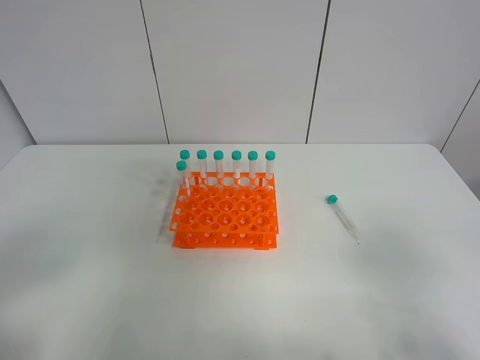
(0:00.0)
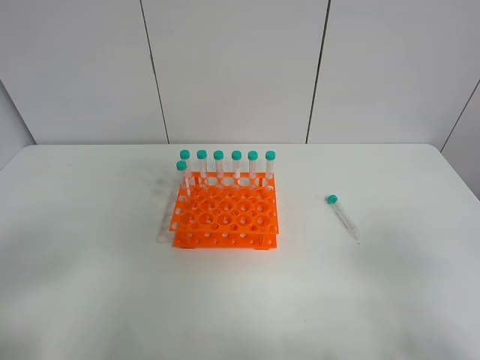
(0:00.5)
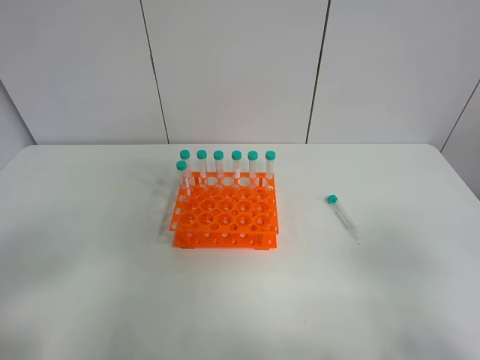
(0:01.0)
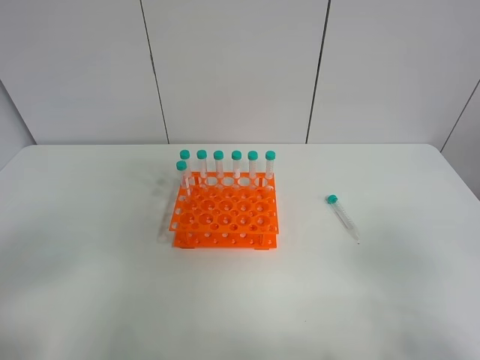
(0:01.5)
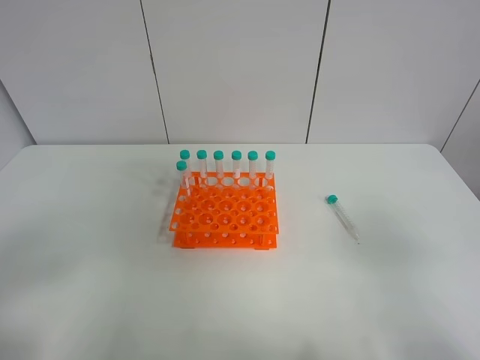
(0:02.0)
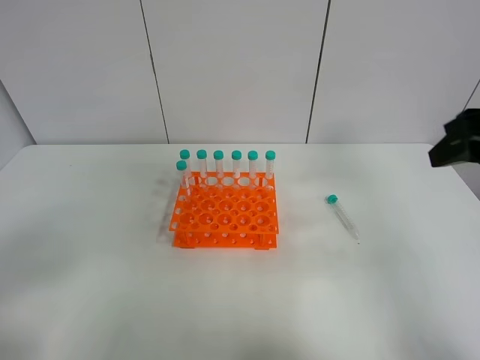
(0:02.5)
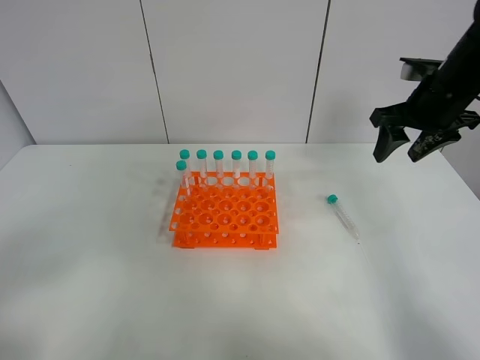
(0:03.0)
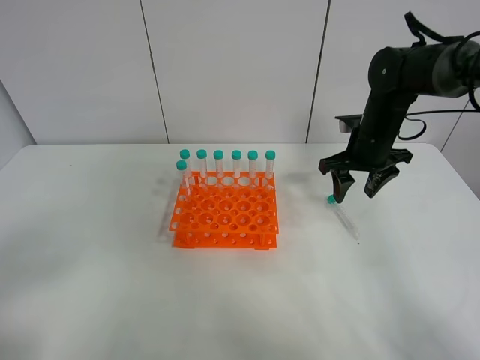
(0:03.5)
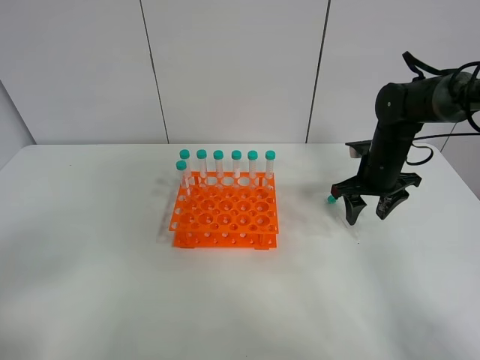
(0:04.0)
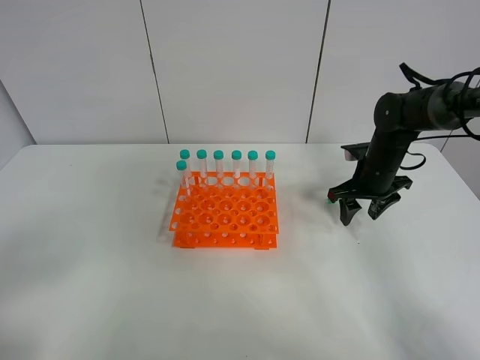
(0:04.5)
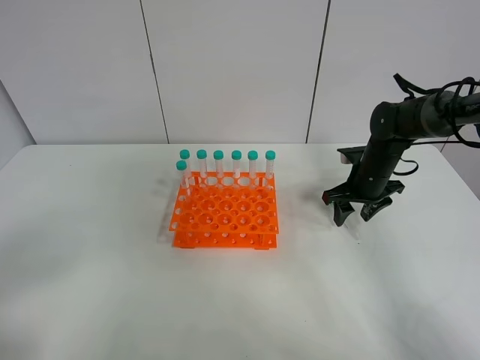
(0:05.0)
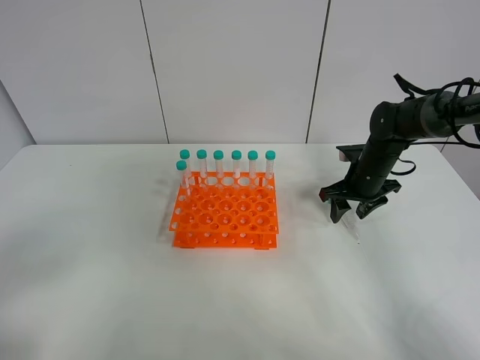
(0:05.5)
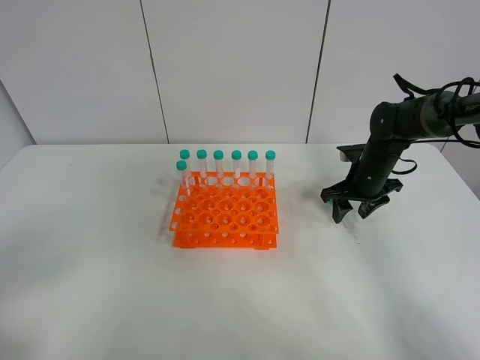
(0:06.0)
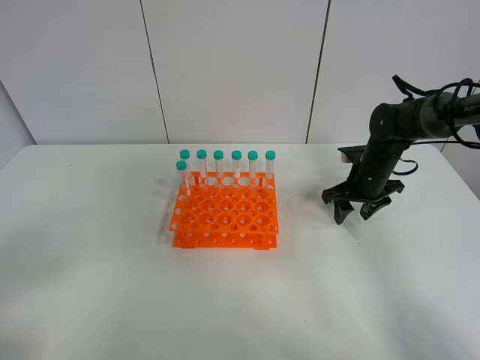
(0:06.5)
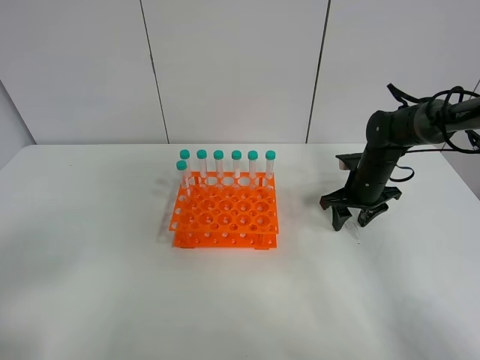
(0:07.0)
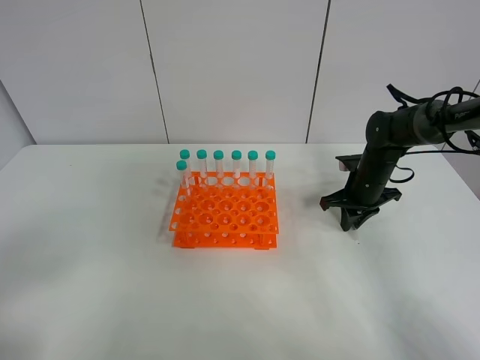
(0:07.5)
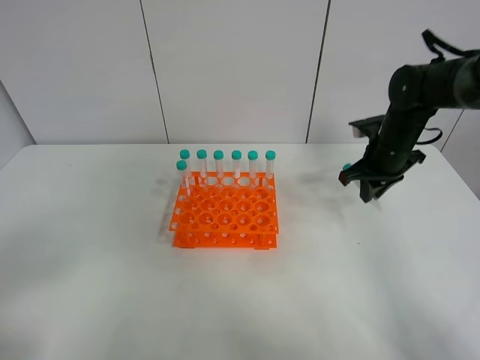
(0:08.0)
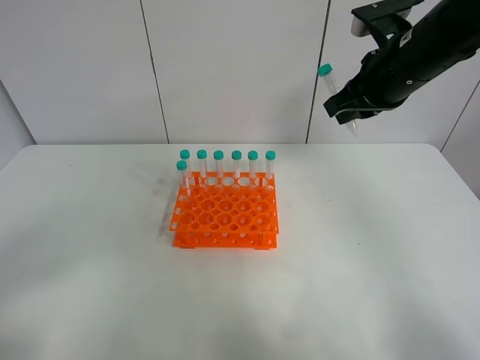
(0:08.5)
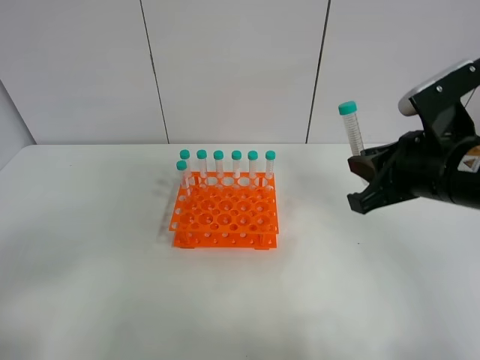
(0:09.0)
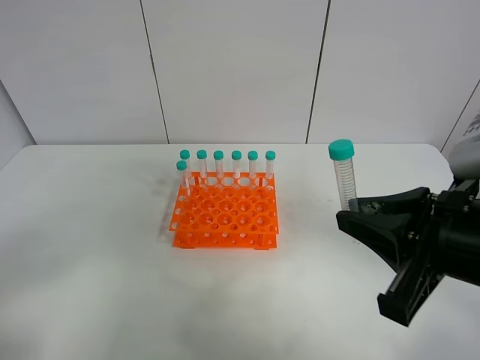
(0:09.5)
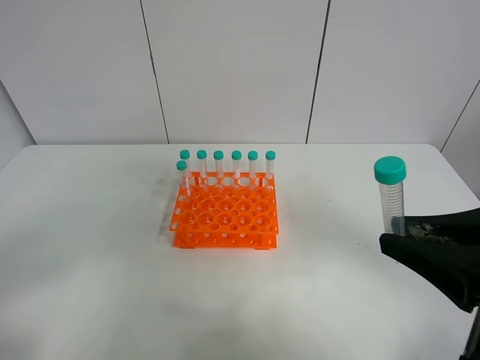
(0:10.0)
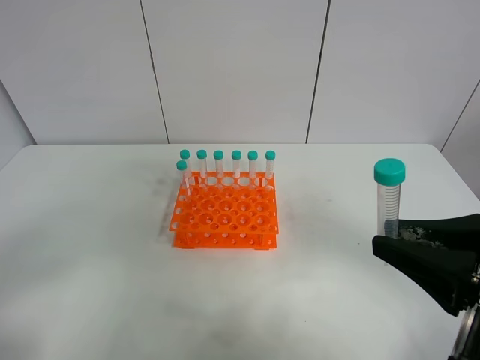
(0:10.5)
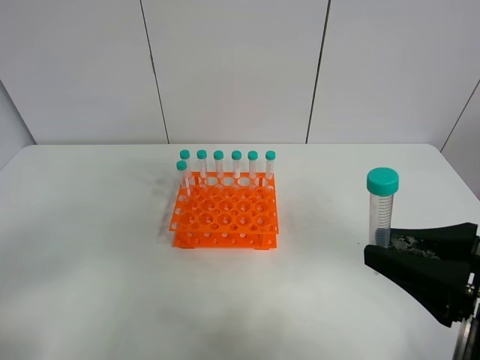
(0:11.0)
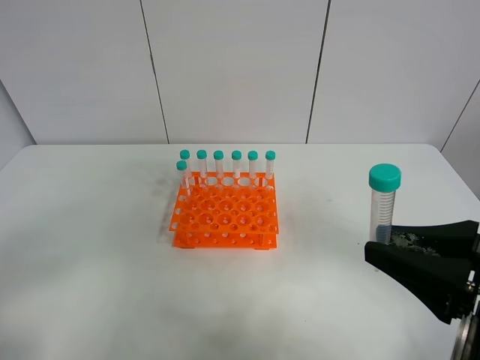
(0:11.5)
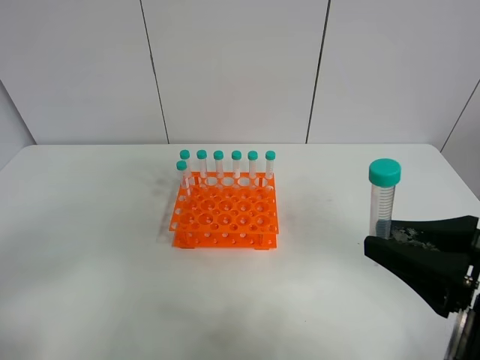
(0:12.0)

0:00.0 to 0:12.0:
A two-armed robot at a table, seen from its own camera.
Task of the whole recording: Put the test tube on the table back onto the test tube rack.
Step, 0:00.0 to 0:08.0: Pick up the test tube with the right gripper.
0:02.0 to 0:04.0: The right gripper shifts approximately 40 cm forward and downward.
0:04.0 to 0:06.0: The grippers move only a little.
0:06.0 to 0:08.0: The right gripper goes roughly 10 cm upward, and closes its fingers.
0:08.0 to 0:10.0: The right gripper moves backward, some 30 cm.
0:10.0 to 0:12.0: The grippers move only a little.

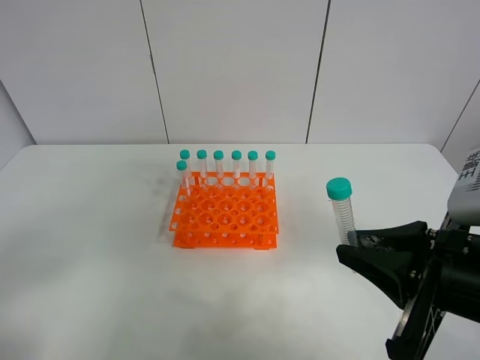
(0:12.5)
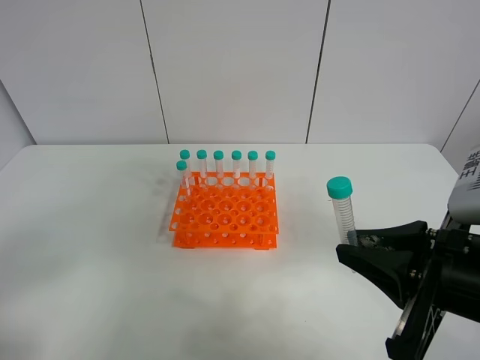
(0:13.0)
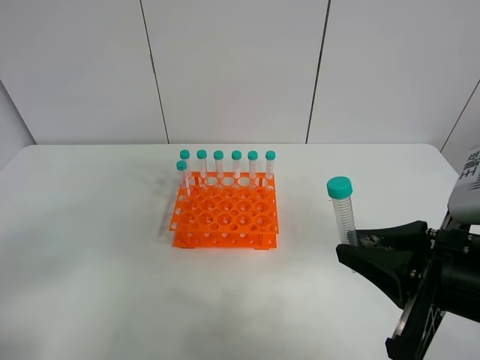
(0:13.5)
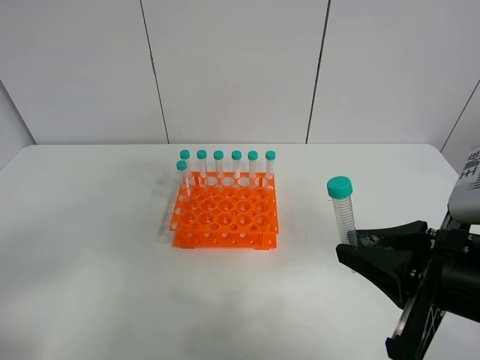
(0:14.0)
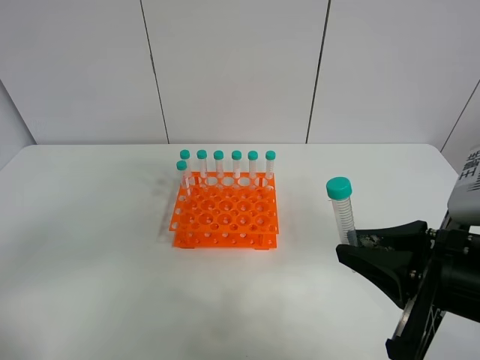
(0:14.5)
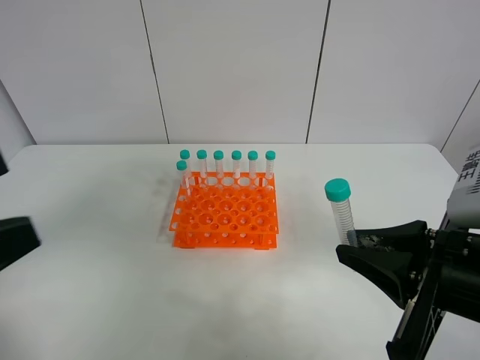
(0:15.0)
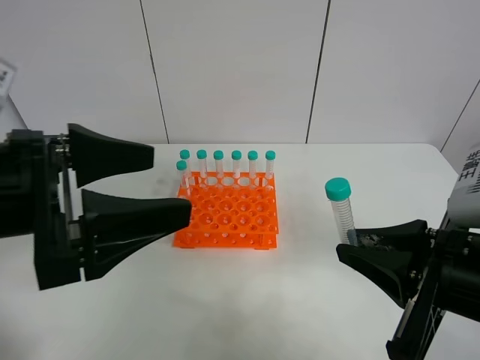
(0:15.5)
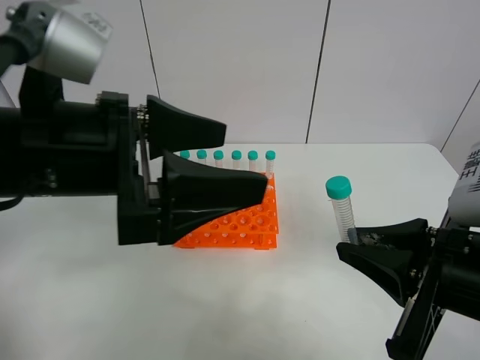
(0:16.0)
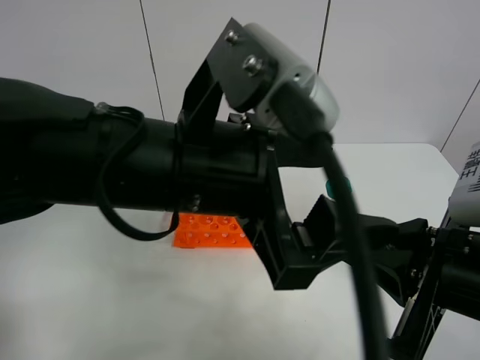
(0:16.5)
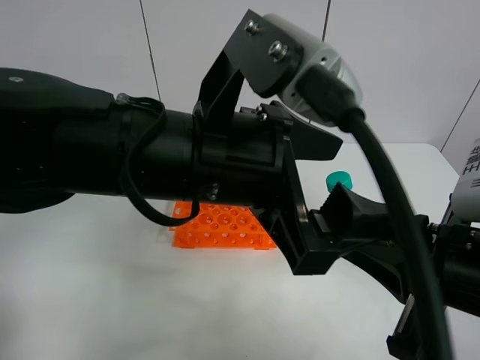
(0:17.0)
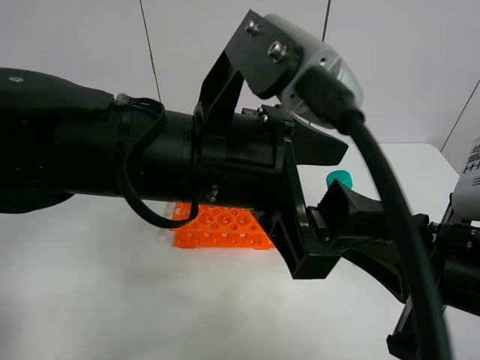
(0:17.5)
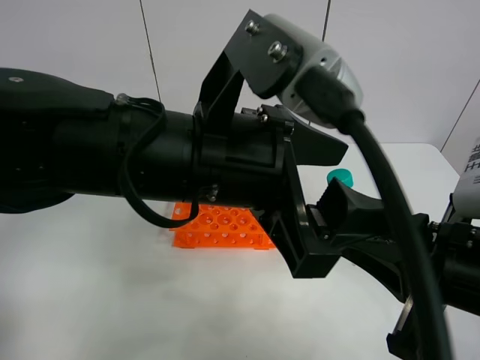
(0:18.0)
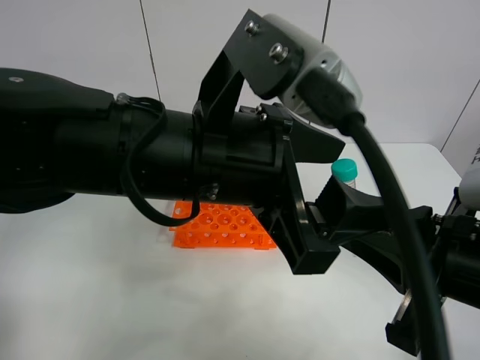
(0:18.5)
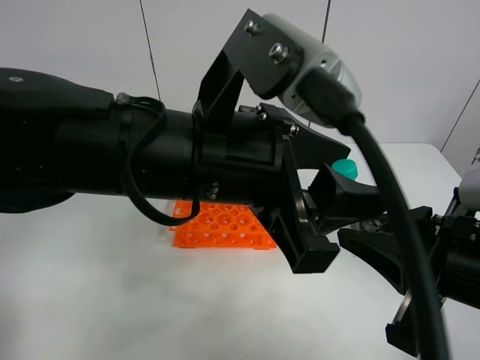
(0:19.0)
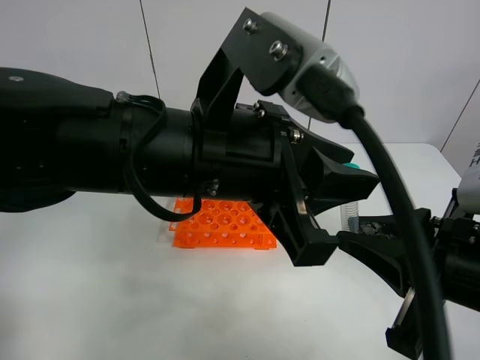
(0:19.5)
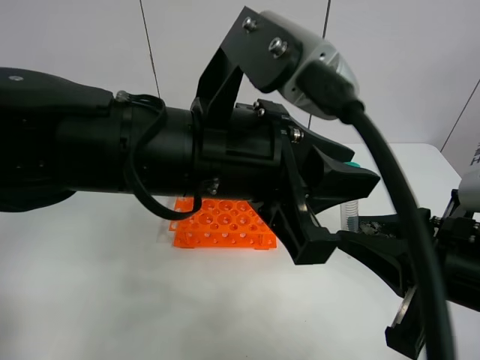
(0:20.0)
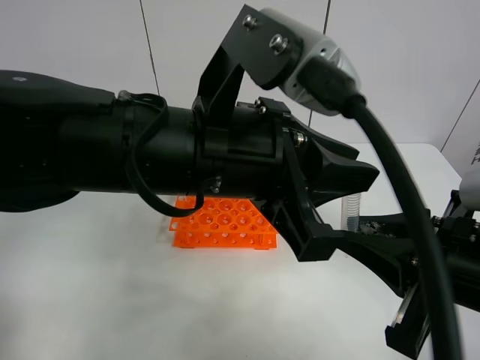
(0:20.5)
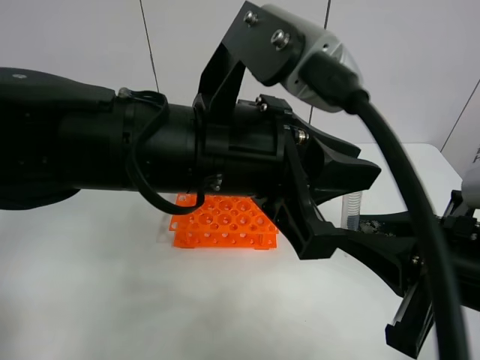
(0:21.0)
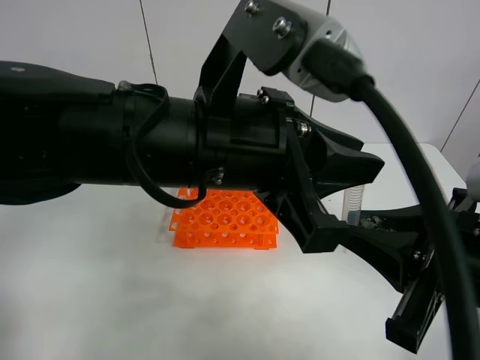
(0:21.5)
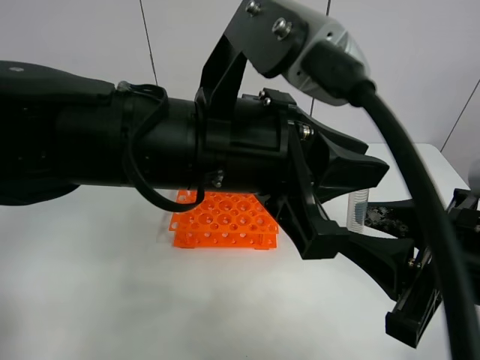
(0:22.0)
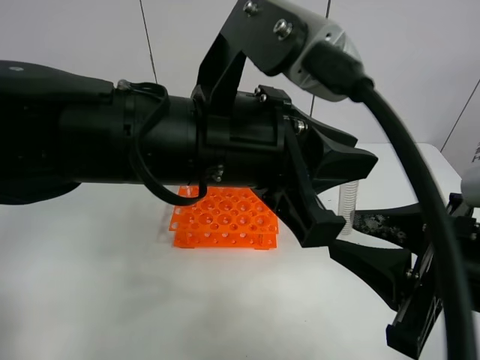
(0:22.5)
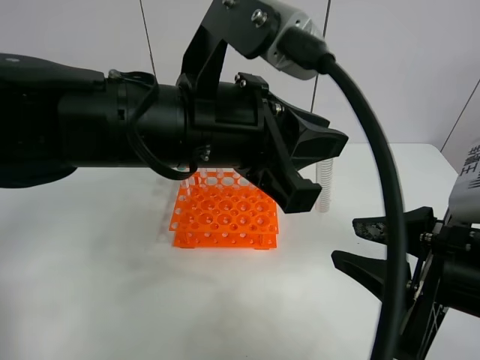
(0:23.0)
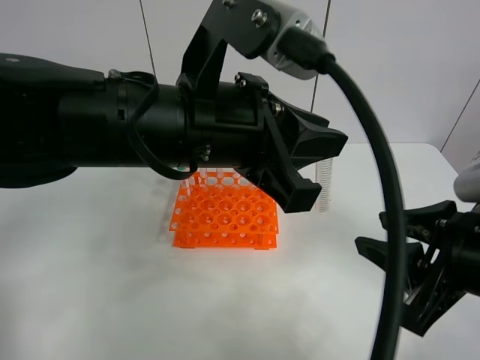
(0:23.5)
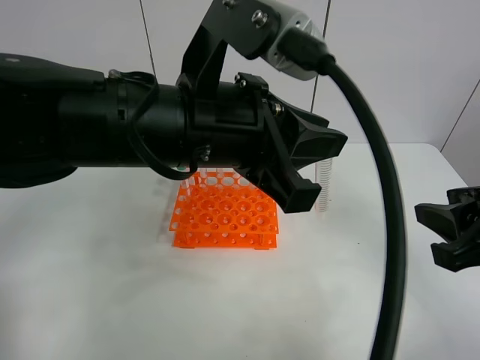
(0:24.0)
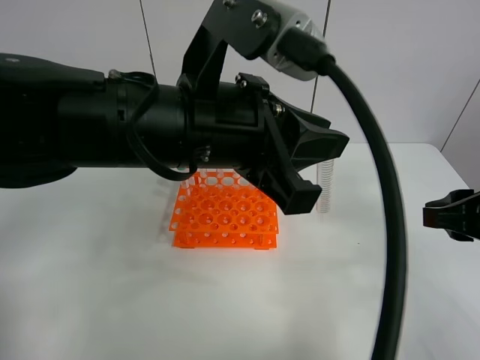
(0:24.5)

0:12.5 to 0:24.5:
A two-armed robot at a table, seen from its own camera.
Task of the whole recording: Put the test tube on the table back onto the test tube rack.
Step, 0:12.5 to 0:23.5: Move the test tube from the right gripper to the left gripper.
0:14.5 to 0:16.5: The left gripper travels to the right and forward by roughly 30 cm.
0:18.5 to 0:20.5: The left gripper closes.
0:20.5 to 0:22.5: The right gripper opens its fingers.
0:22.5 to 0:24.5: The right gripper is displaced to the right and forward by roughly 10 cm.

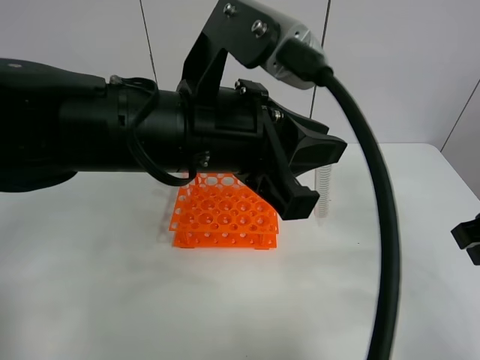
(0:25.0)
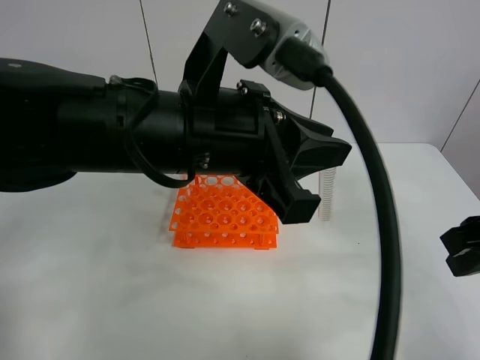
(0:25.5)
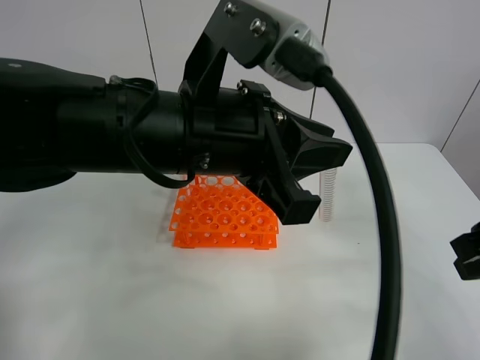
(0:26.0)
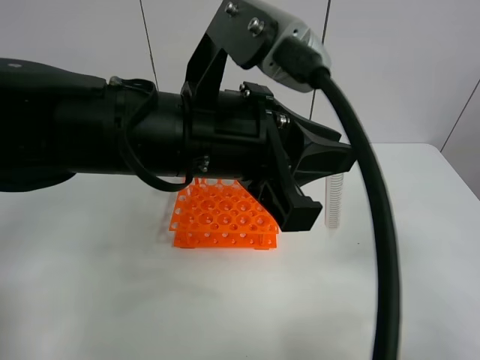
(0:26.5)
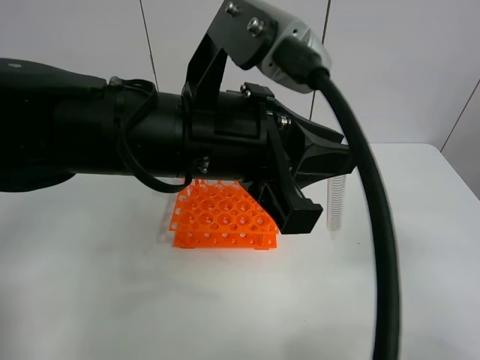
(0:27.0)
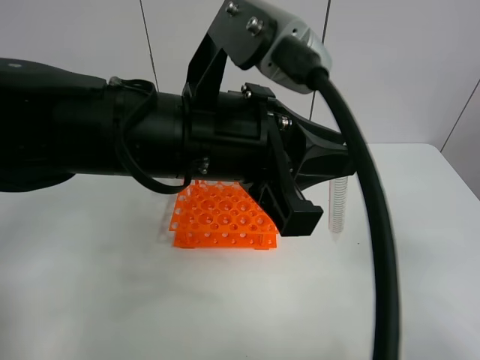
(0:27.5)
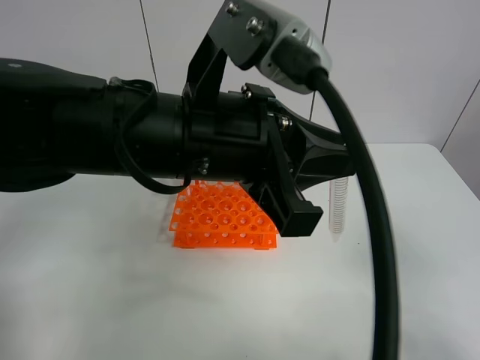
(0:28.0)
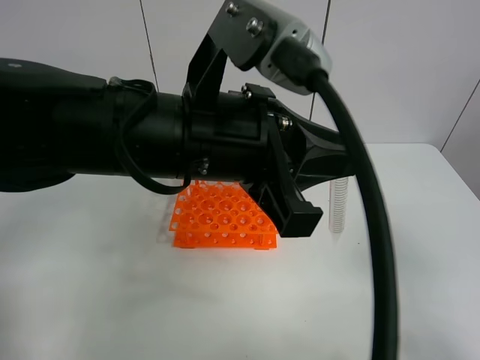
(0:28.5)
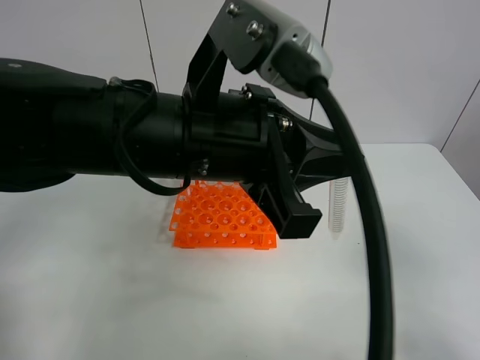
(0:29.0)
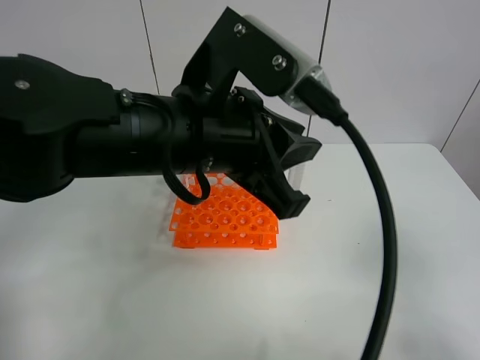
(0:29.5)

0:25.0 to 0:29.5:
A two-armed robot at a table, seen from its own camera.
Task of the whole recording: Put the test tube on the table back onto the test tube rack.
0:25.0 to 0:27.0: The right gripper is displaced backward by some 10 cm.
0:27.0 to 0:29.5: The right gripper moves backward, roughly 5 cm.
